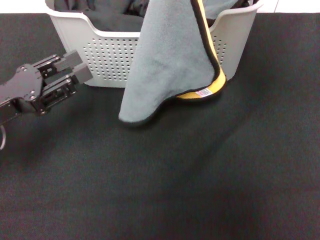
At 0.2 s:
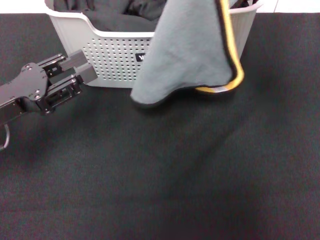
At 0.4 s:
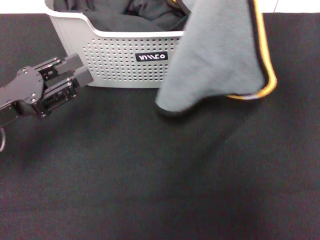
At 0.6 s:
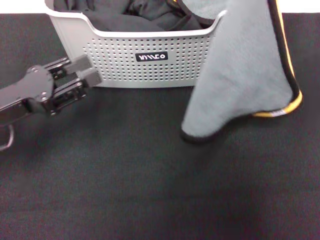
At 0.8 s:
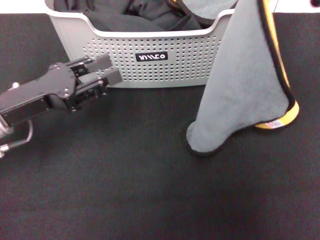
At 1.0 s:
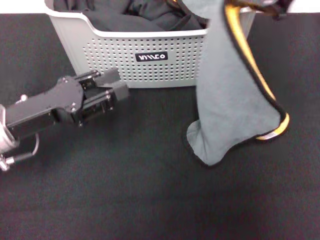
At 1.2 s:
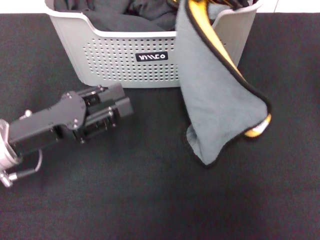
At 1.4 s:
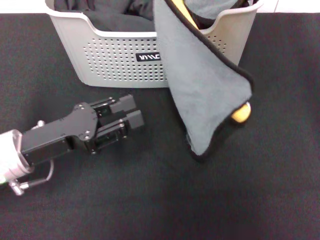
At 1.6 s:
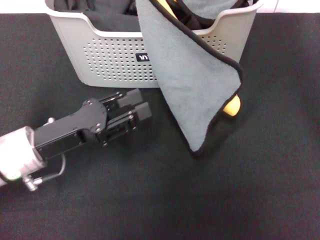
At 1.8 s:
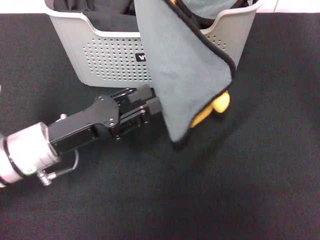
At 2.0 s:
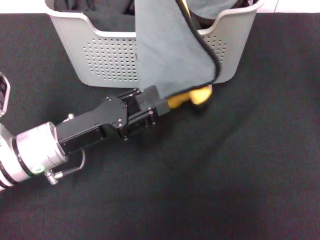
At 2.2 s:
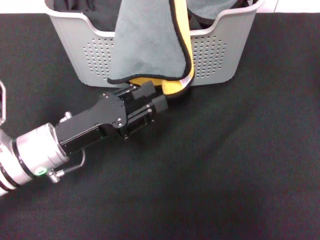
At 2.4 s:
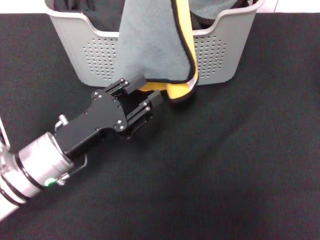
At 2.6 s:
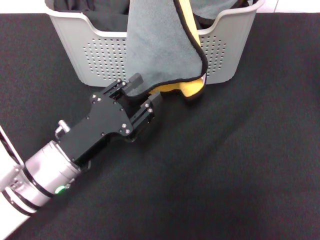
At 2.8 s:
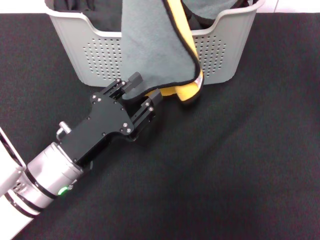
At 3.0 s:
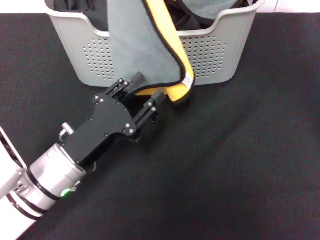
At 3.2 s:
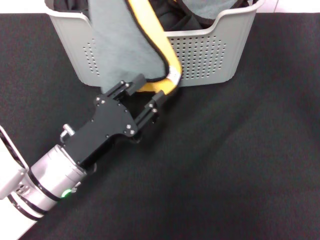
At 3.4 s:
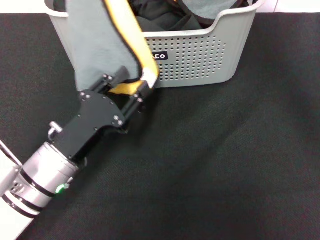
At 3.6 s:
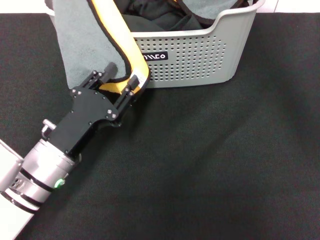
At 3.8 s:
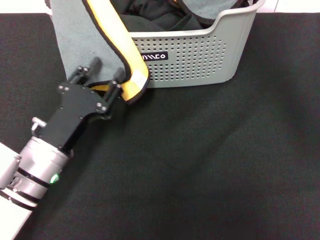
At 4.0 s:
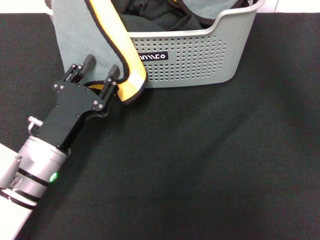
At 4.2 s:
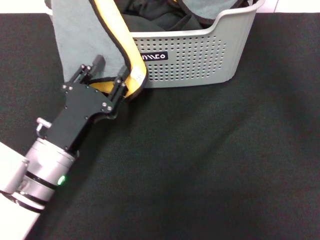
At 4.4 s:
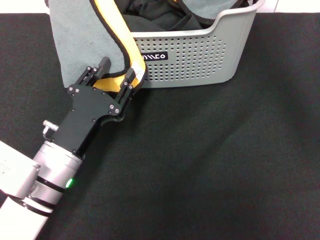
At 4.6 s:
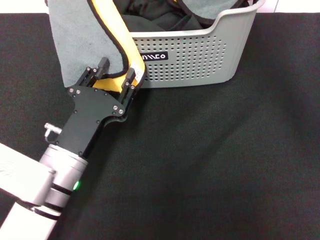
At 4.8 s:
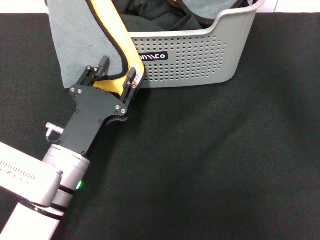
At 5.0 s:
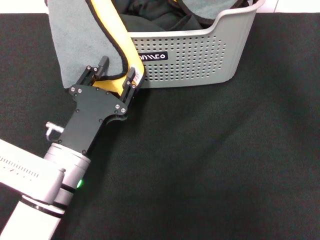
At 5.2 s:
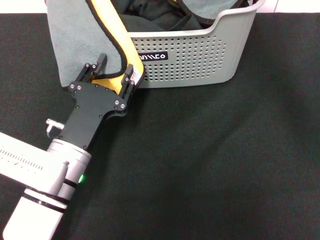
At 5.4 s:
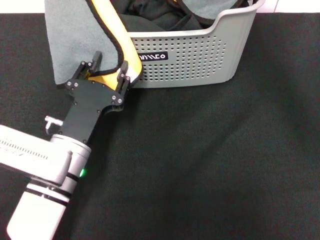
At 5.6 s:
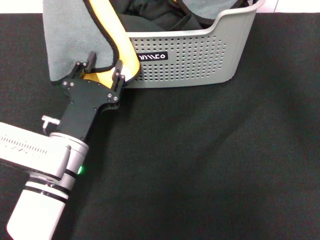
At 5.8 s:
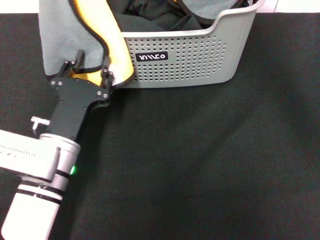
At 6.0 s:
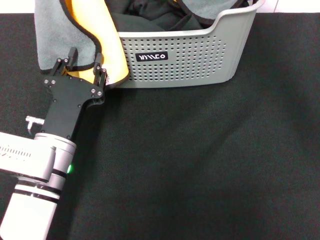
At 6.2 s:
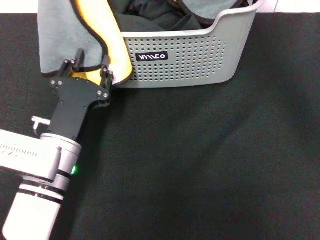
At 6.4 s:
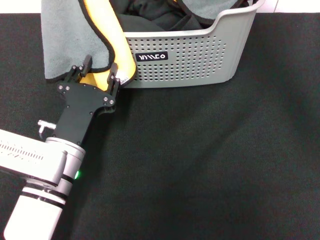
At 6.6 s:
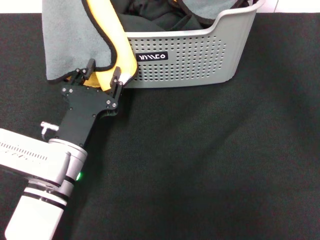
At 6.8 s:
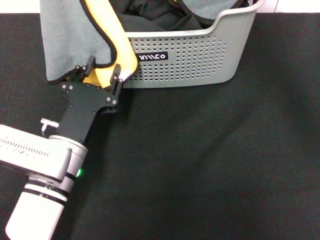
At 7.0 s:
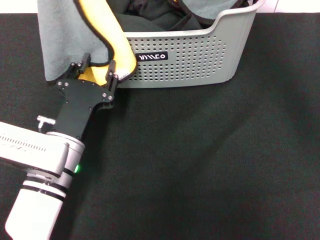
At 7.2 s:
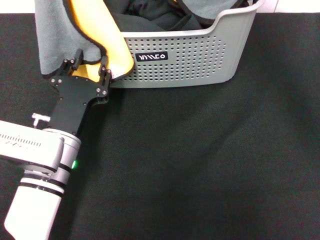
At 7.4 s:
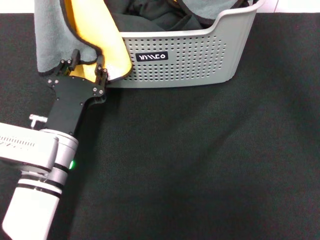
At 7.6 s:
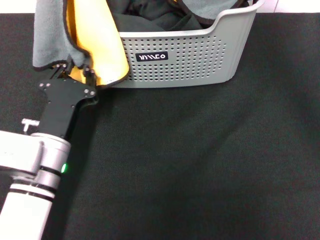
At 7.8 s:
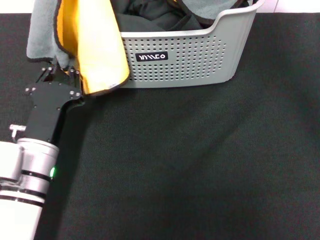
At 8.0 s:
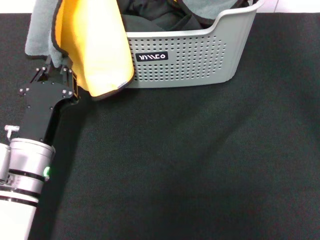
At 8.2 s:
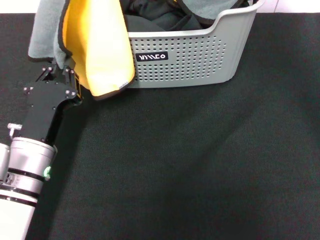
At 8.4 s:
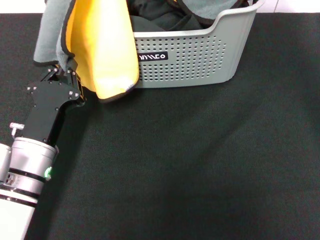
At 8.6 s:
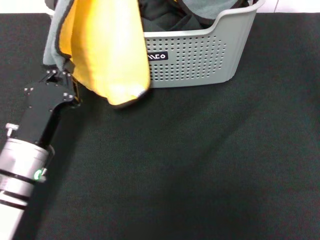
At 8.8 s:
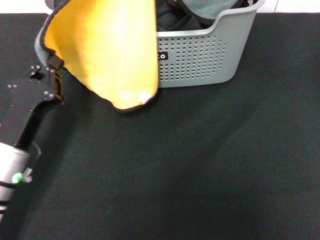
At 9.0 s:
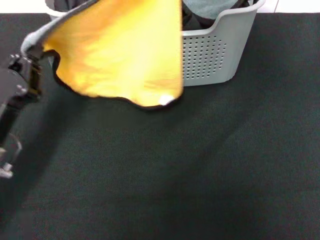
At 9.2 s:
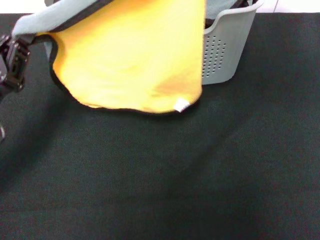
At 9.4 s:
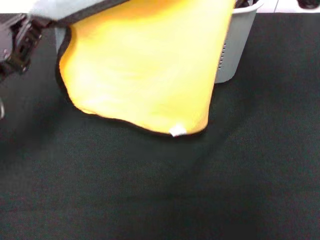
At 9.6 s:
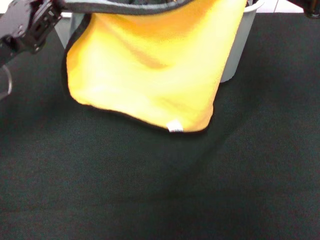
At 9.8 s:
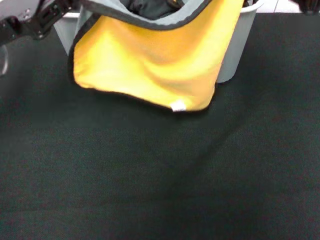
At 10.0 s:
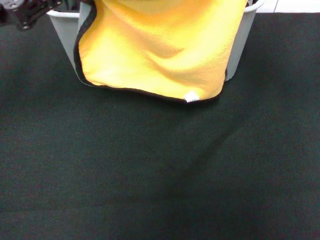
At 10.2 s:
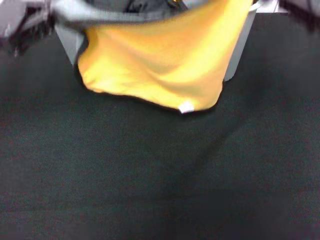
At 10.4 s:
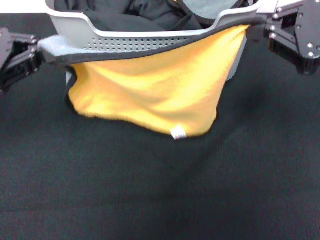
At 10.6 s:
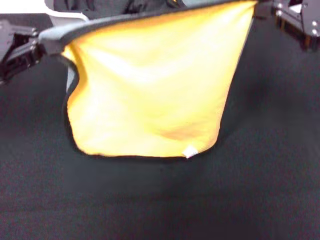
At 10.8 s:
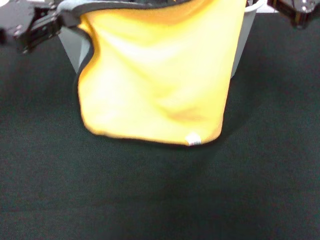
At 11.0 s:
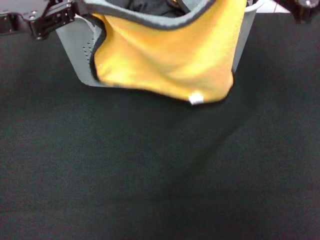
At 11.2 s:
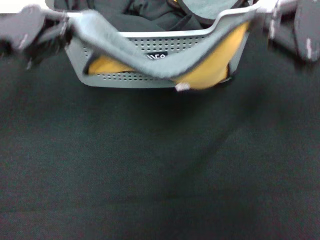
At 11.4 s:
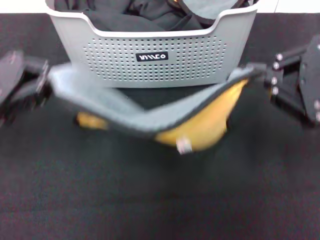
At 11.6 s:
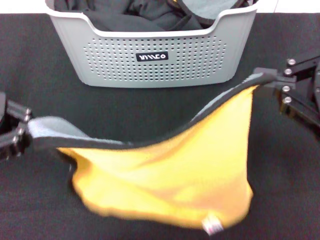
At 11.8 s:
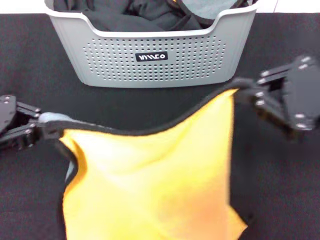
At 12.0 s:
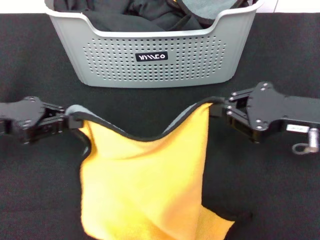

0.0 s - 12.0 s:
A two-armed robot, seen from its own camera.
Task of the whole recording: pick up the towel from the storage box and lay it flat on the black tablecloth.
0.0 s - 1.6 s: The right gripper shifts roughly 10 cm to the left and upward. The left gripper shifts about 5 cm to the right.
1.6 s - 3.0 s: The left gripper moves to the right, some 5 cm.
3.0 s - 4.4 s: The right gripper travels to the left by about 5 cm.
4.4 s - 6.0 s: The grippers stay close to where they were, moving slightly.
6.0 s - 7.6 s: The grippers move only a little.
7.6 s - 9.0 s: The left gripper is displaced to the left by some 10 cm, and closes; the right gripper shifts roughly 15 cm to the right.
9.0 s - 10.4 s: The left gripper shifts approximately 15 cm upward, forward and to the left; the right gripper is displaced to the right, downward and backward by some 15 cm.
10.4 s - 12.0 s: The left gripper goes forward and backward, about 10 cm each way, reversing 2 times. Meanwhile the right gripper swings forward and backward, approximately 10 cm each way, with 2 reversals.

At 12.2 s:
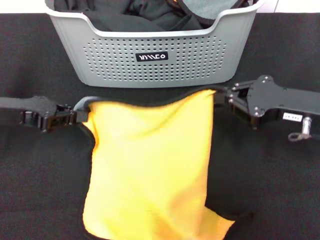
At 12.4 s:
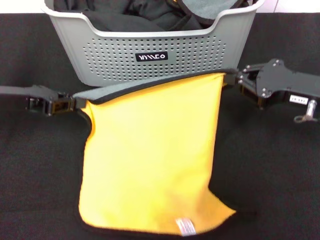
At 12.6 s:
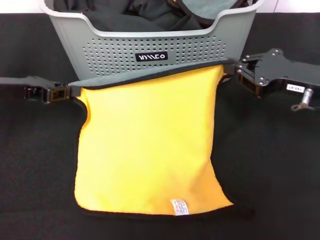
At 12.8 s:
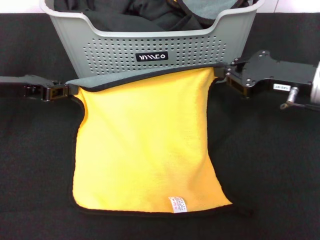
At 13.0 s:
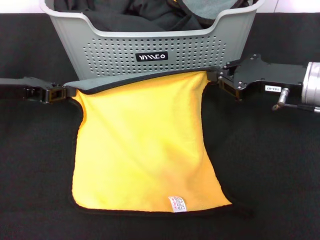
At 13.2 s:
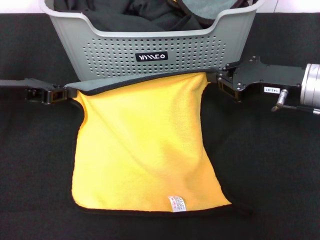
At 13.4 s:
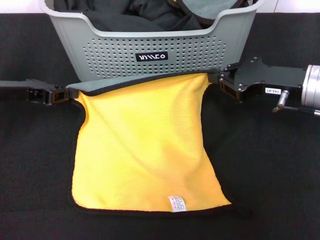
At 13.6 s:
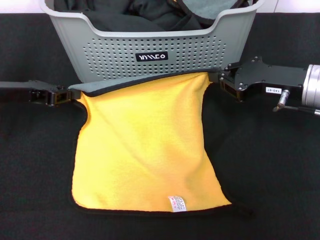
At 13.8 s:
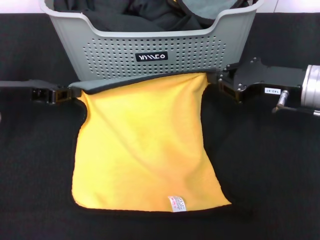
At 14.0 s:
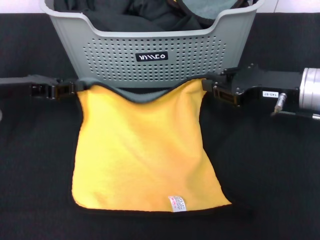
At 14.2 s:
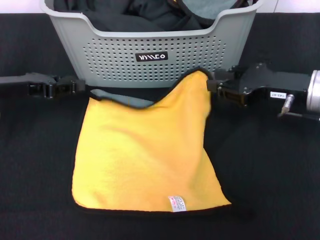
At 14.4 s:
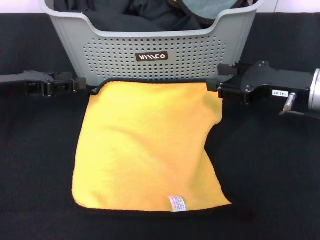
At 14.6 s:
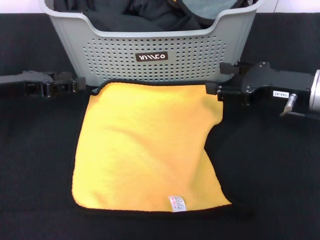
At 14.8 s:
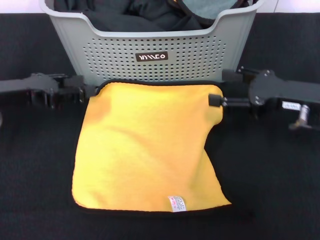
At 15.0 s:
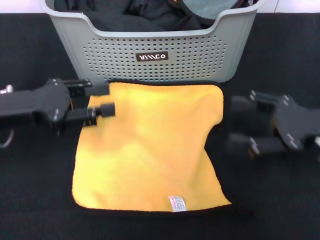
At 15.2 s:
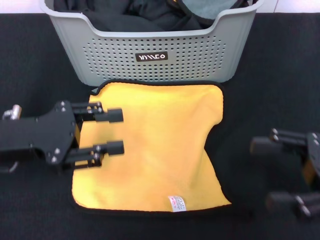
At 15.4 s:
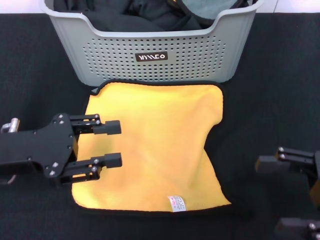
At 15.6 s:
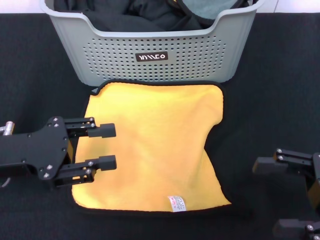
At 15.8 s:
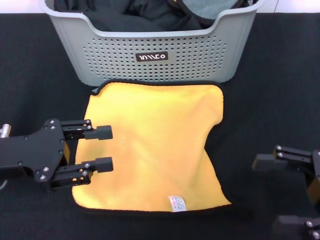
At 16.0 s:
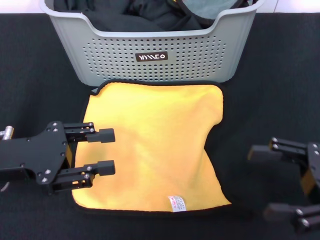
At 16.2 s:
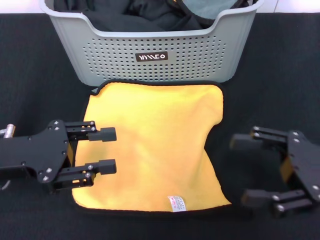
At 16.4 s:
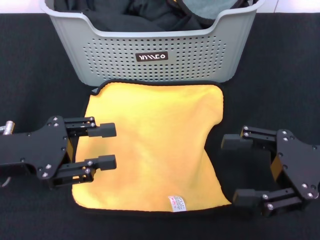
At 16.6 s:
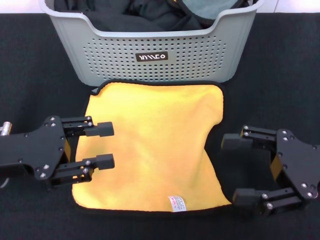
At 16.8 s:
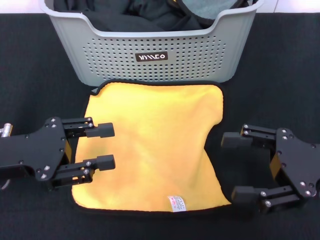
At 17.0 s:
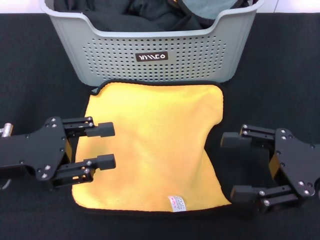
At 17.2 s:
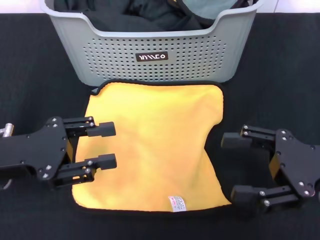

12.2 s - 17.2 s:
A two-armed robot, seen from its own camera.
Task of the whole recording: pick up the towel from the storage box and lay it flat on the black tablecloth.
Step, 12.2 s - 14.4 s: Spread the towel flat with the right gripper.
12.2 s - 13.8 s: The right gripper heads forward, covering some 5 cm.
13.8 s - 15.6 s: The left gripper travels backward by some 10 cm, and opens up; the right gripper heads backward and to the right, covering approximately 15 cm, and opens up.
15.6 s - 17.2 s: The grippers stay close to where they were, moving slightly.
